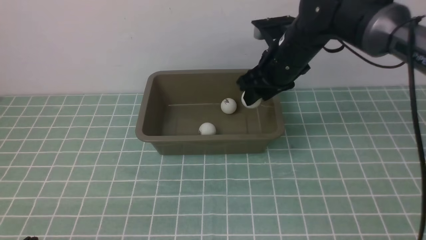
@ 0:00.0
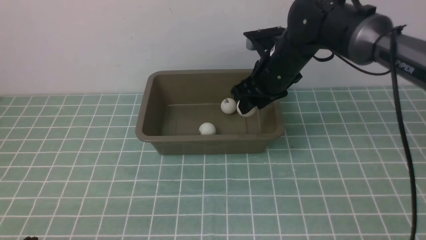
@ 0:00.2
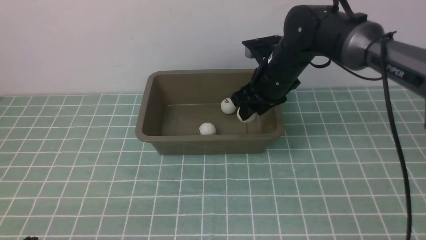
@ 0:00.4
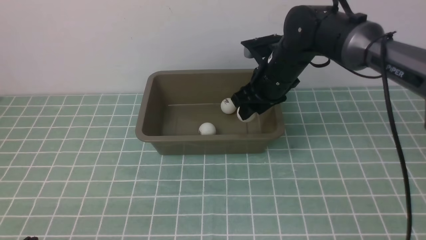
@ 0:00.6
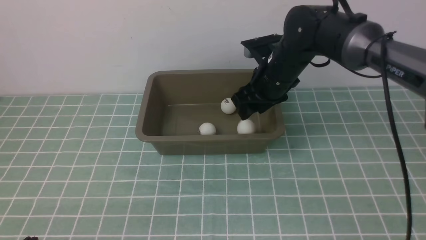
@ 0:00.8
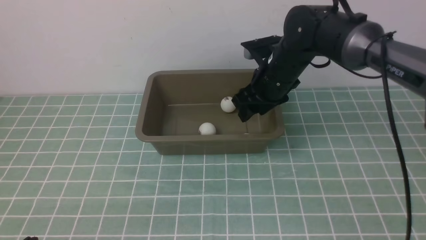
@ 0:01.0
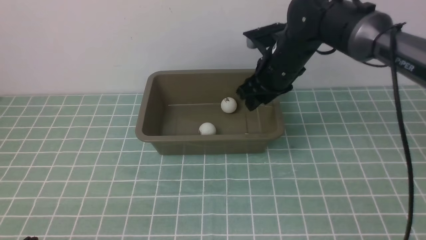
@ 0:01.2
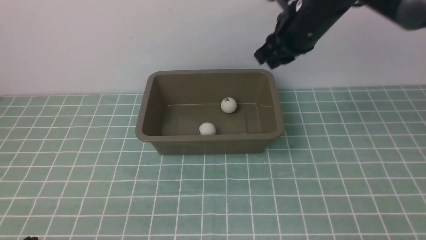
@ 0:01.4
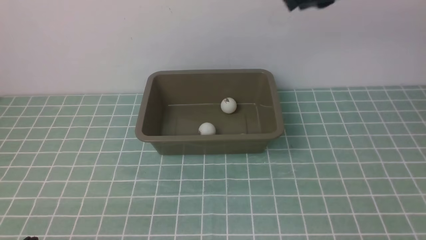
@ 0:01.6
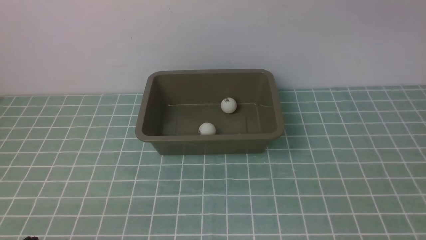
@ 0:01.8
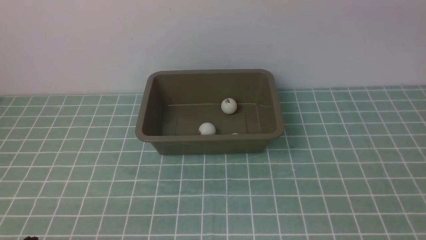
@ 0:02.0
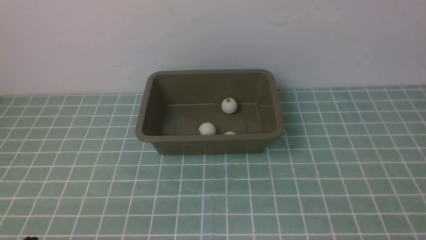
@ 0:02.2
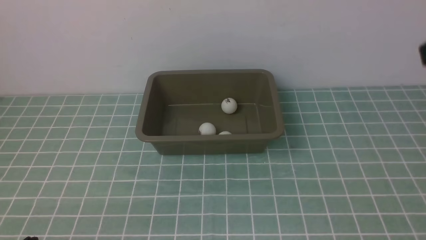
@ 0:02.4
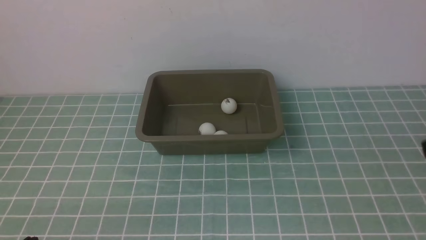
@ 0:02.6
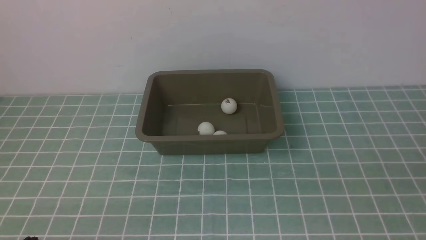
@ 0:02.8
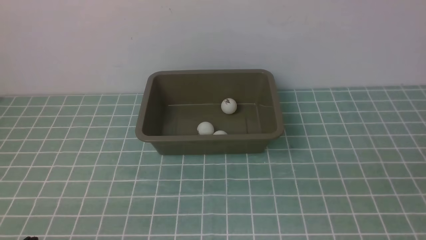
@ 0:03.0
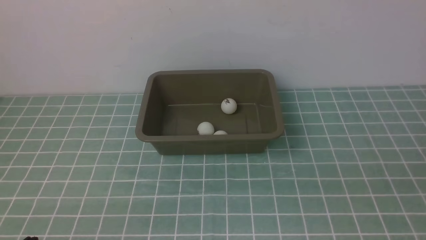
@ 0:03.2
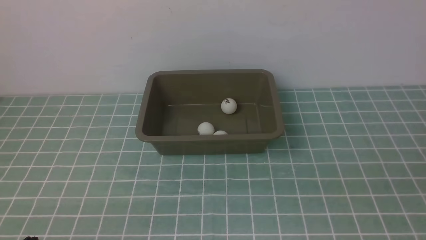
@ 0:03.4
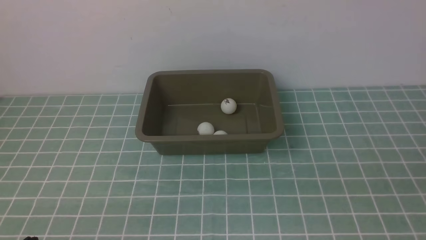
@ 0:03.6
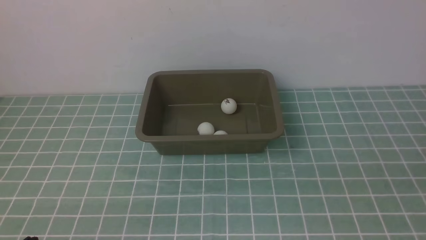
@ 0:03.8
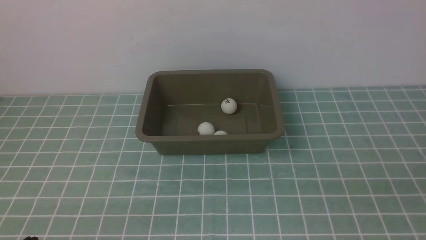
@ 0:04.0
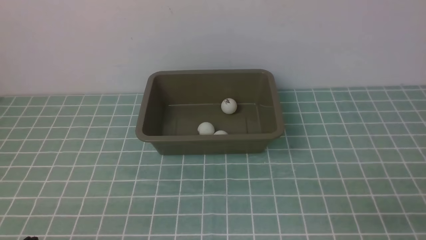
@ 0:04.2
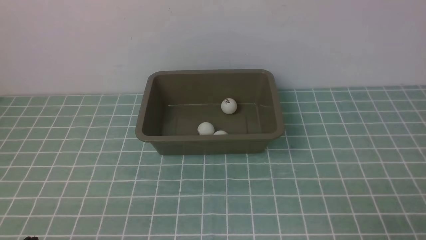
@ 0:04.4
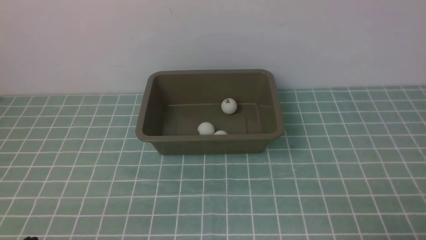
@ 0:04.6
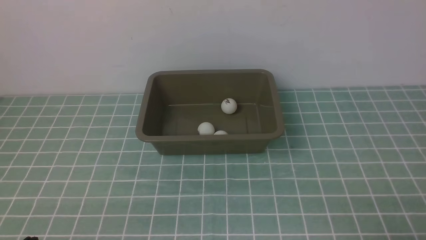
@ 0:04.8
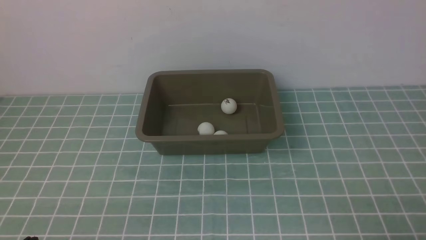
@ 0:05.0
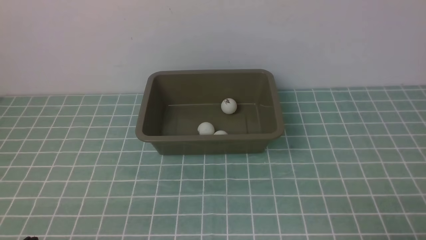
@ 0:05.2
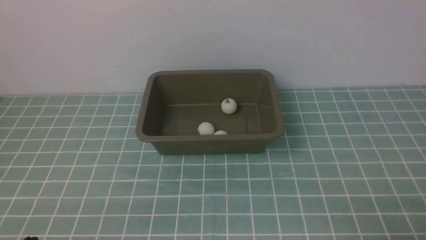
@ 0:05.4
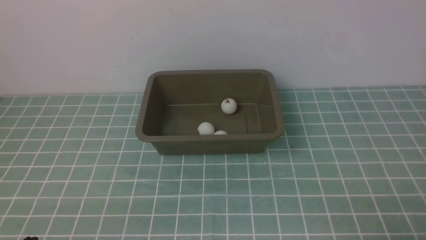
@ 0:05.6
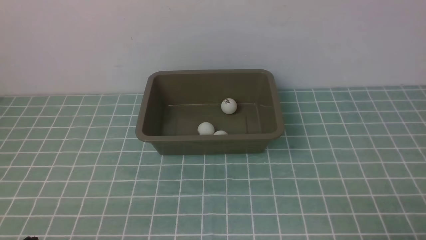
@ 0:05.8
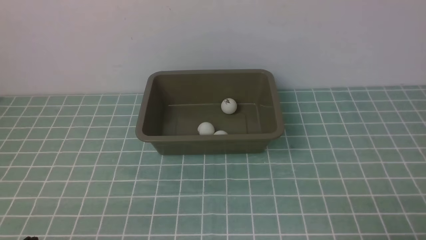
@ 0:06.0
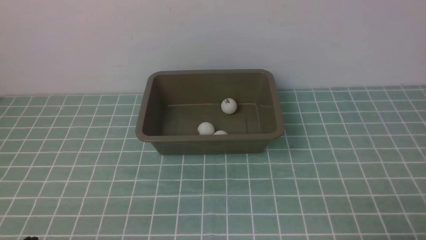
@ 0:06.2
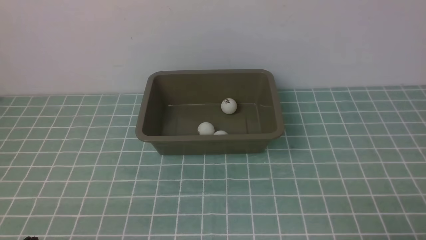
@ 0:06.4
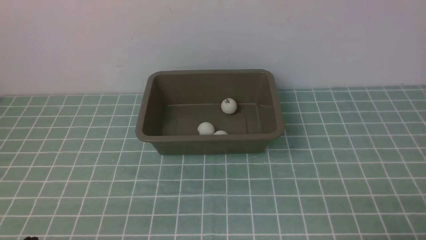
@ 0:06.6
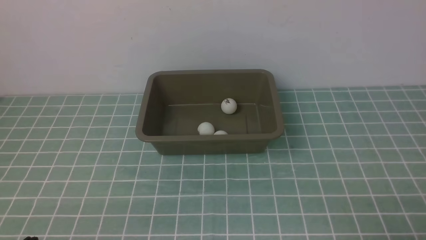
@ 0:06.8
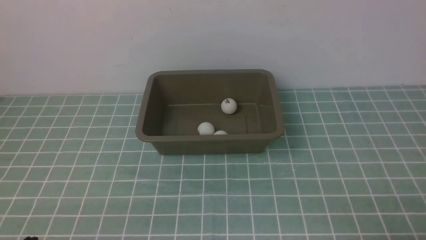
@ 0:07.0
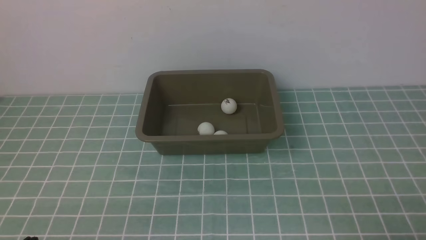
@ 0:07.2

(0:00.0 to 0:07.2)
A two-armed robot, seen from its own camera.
Step, 0:00.0 - 0:01.2: use the right arm to put the table tennis ball into the box.
0:00.0 - 0:01.4: The right gripper is displaced upward by some 10 cm.
0:01.4 - 0:02.8: The right gripper heads backward and to the right, covering approximately 35 cm.
0:04.4 - 0:07.2: Both grippers stay about where they are.
